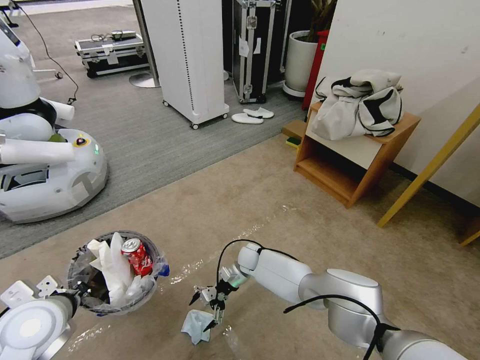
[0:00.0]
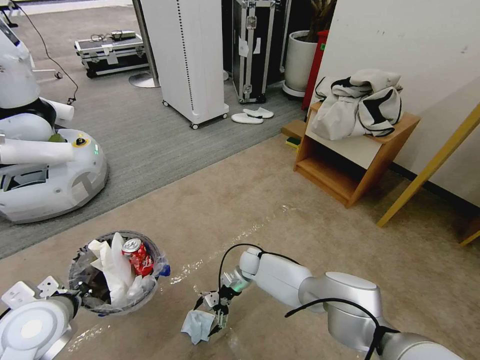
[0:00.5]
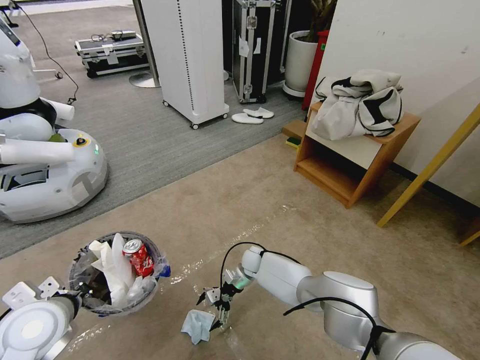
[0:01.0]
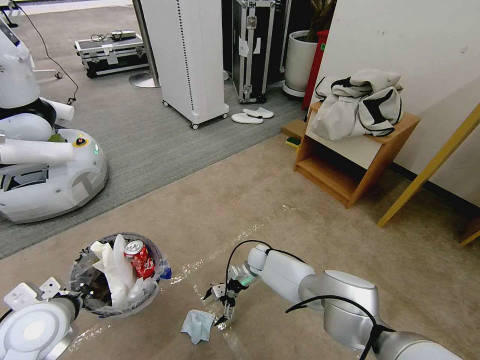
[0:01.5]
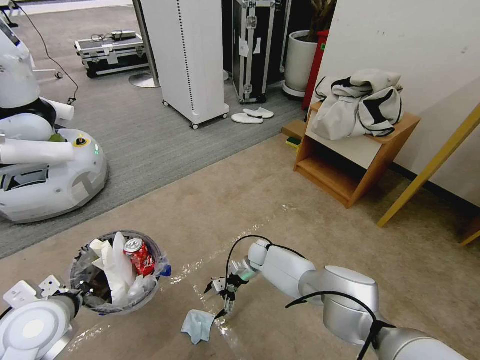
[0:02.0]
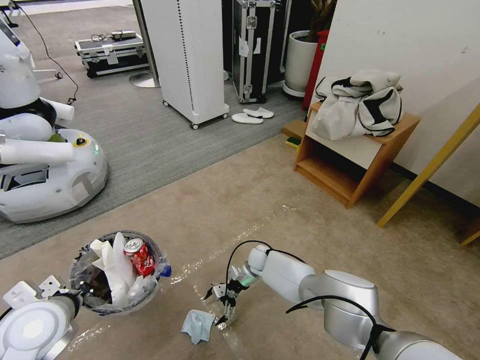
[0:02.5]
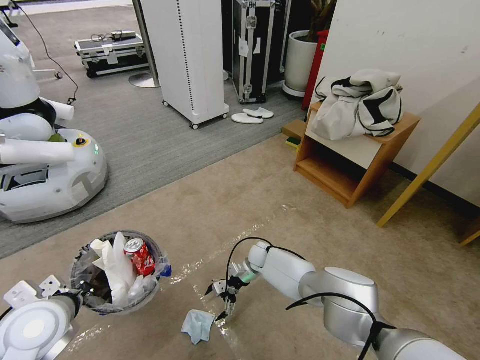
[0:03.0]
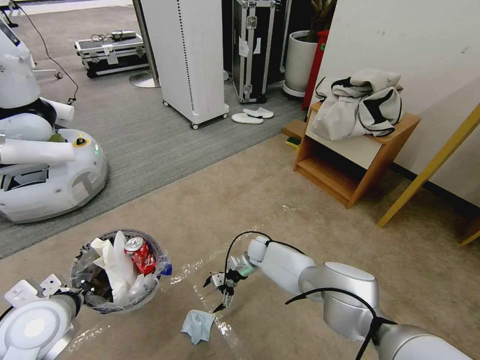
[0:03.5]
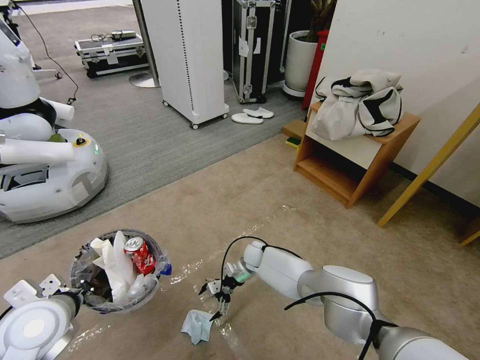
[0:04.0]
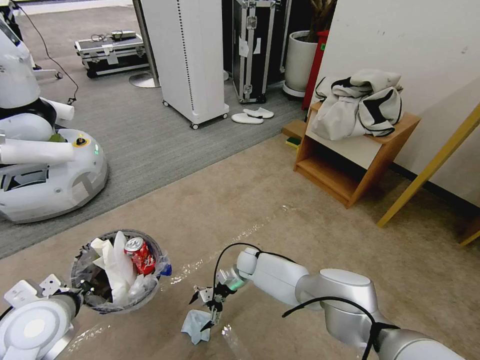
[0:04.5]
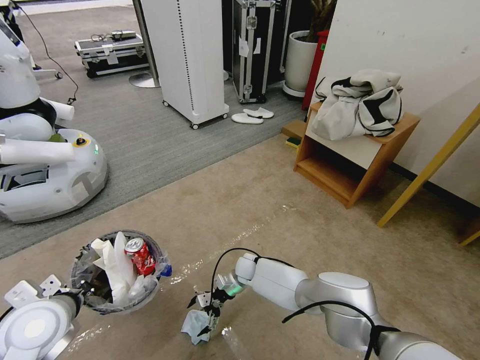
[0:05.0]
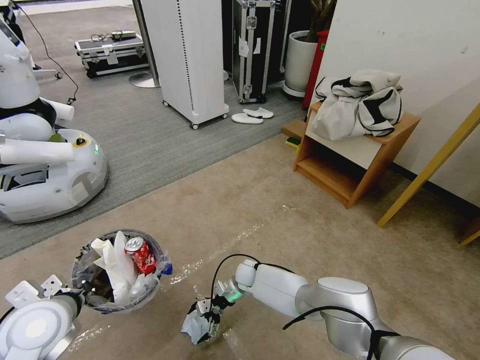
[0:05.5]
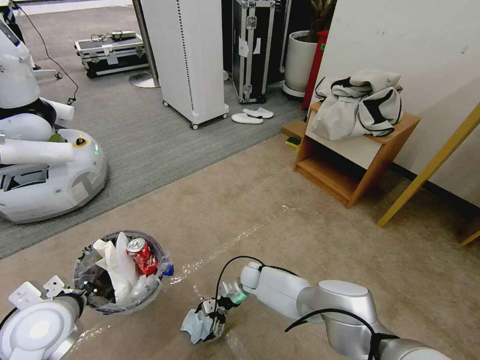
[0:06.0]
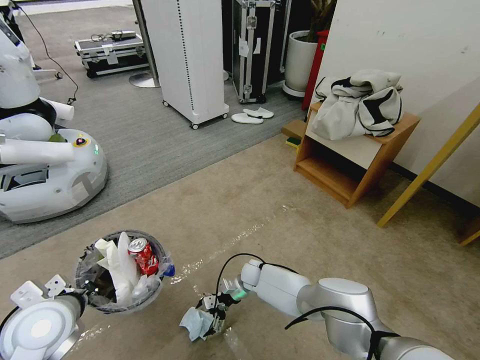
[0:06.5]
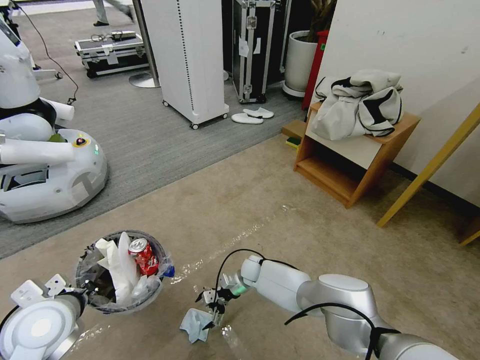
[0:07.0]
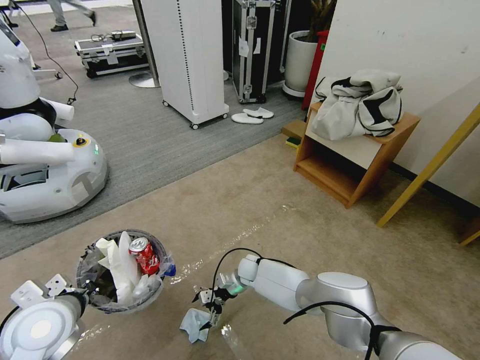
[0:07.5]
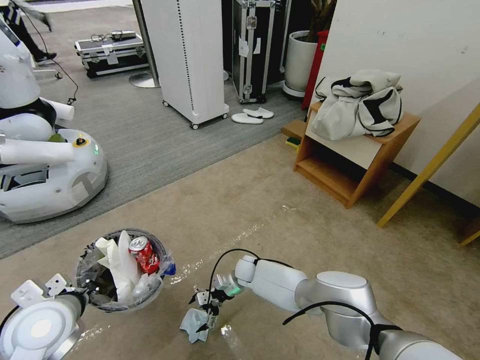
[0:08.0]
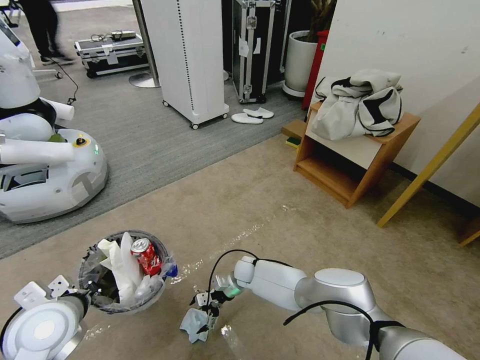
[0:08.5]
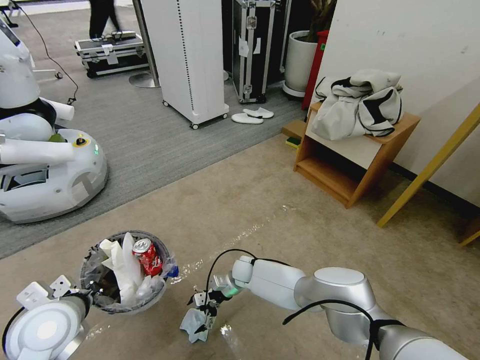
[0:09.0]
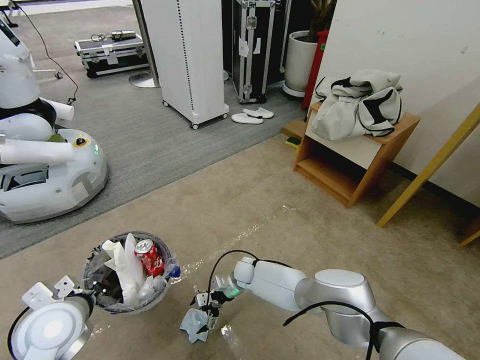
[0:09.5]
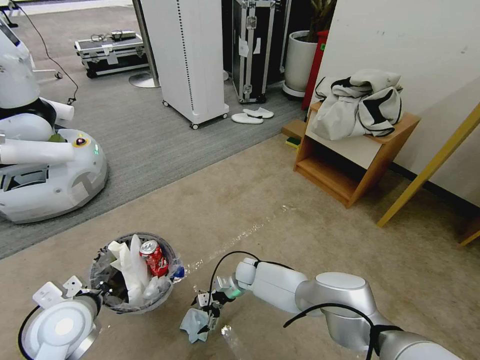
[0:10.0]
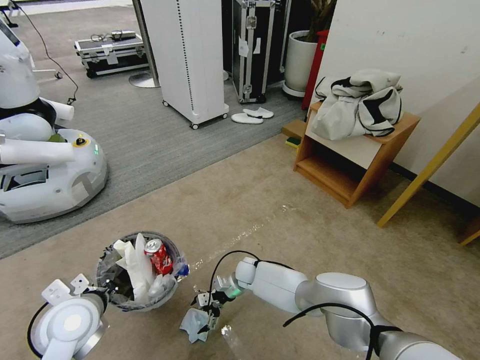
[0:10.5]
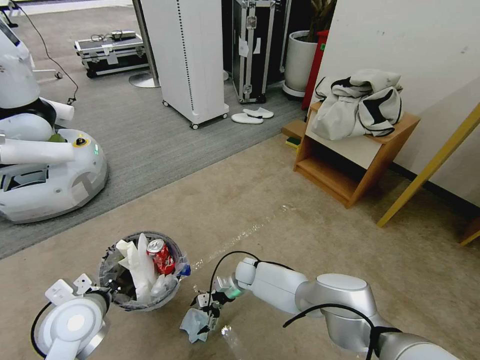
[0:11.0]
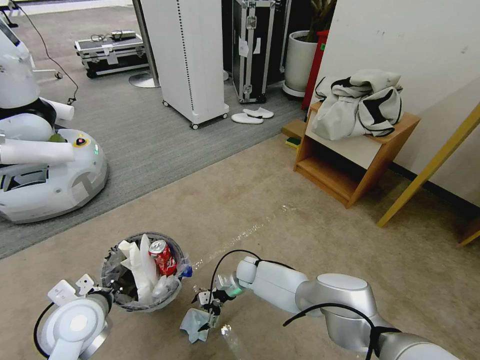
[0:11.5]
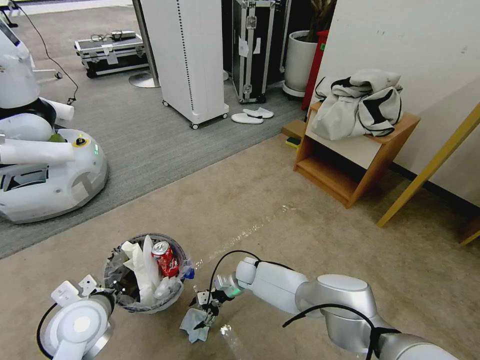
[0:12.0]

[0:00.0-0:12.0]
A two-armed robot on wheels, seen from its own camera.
Task of the whole recording: Pick up the trash bin and place the garbage on the floor into it.
0:00.0 to 0:04.0: The grippers make only small movements.
0:04.0 to 0:06.0: The right gripper is displaced backward by roughly 5 cm.
0:06.0 to 0:12.0: The grippers move only a little.

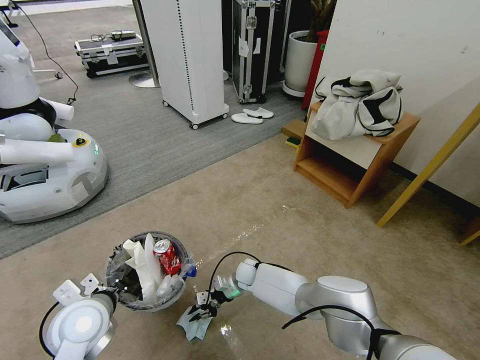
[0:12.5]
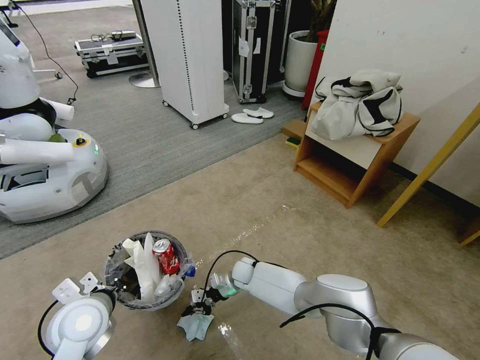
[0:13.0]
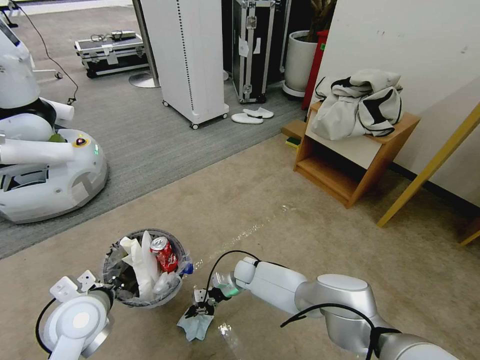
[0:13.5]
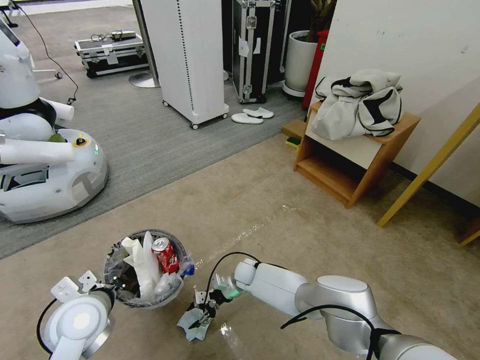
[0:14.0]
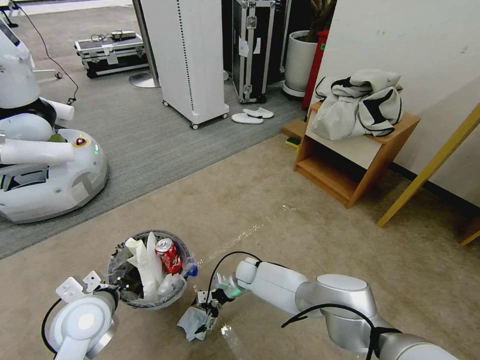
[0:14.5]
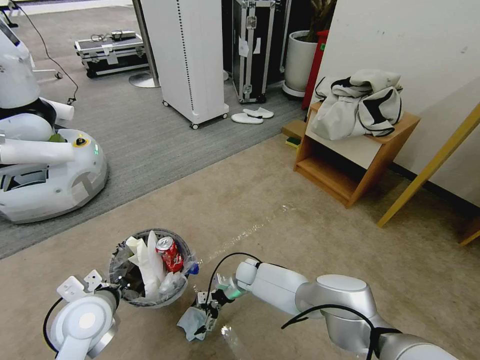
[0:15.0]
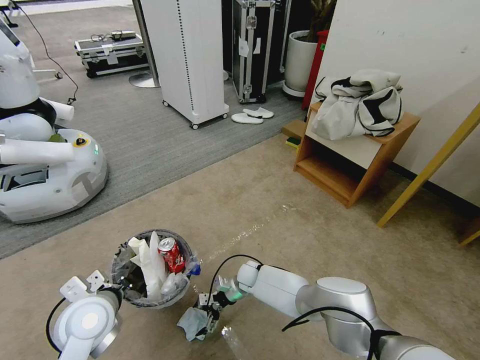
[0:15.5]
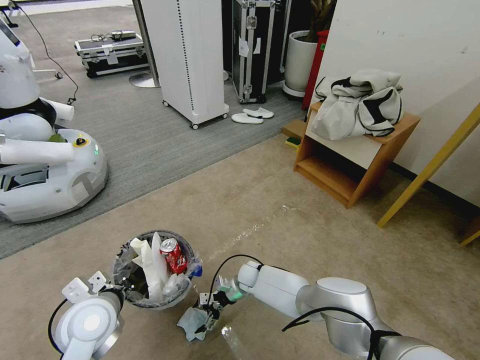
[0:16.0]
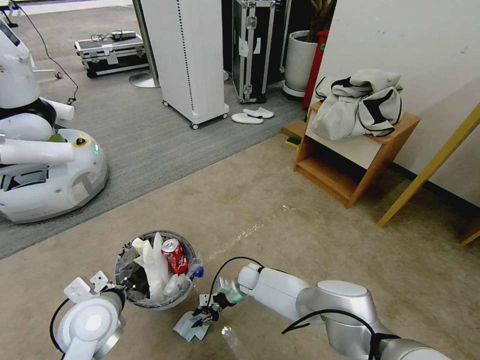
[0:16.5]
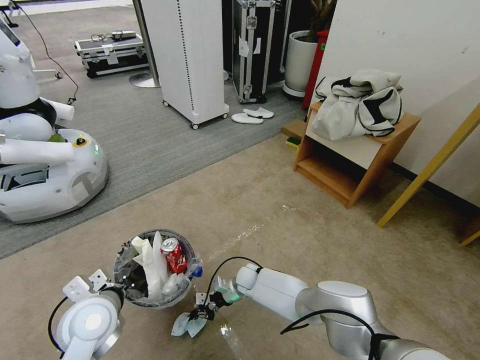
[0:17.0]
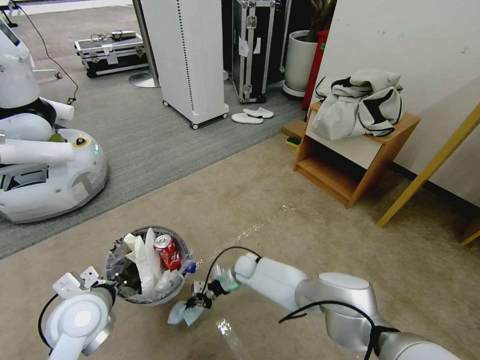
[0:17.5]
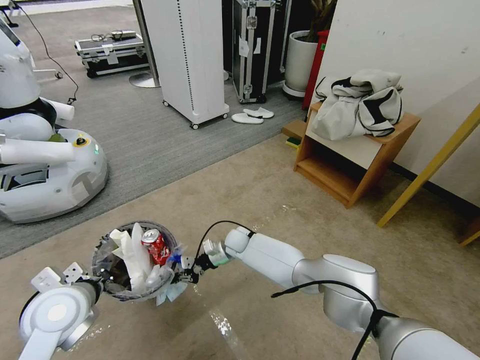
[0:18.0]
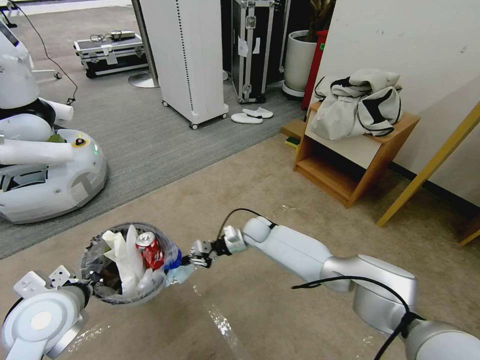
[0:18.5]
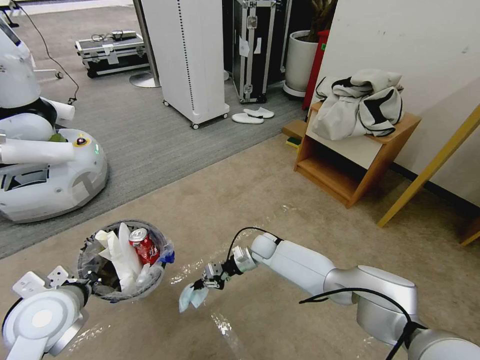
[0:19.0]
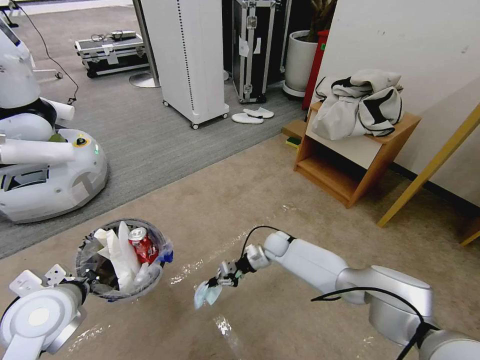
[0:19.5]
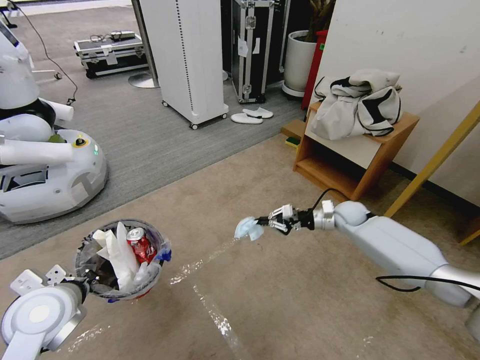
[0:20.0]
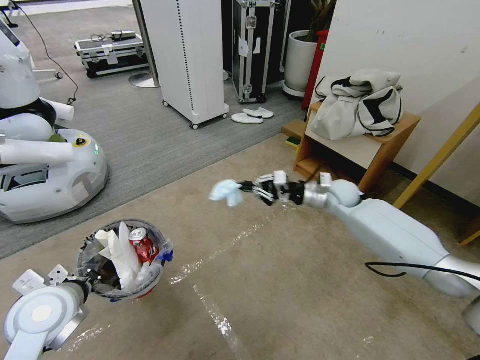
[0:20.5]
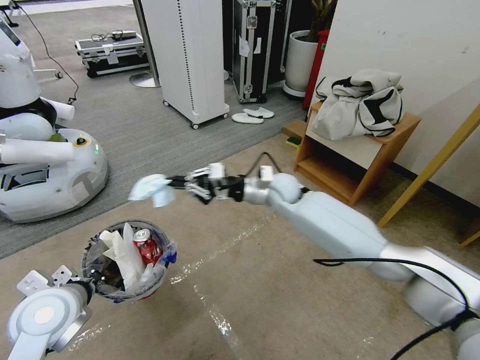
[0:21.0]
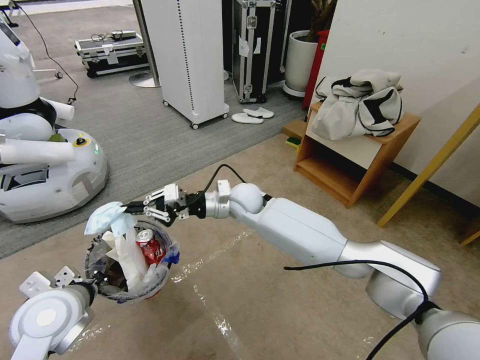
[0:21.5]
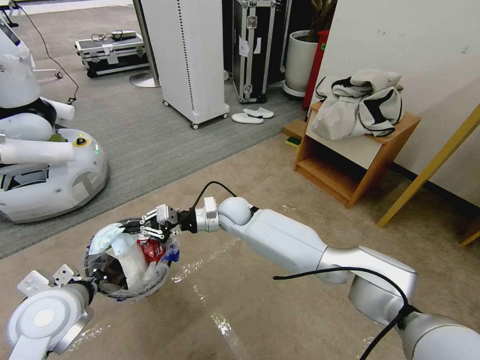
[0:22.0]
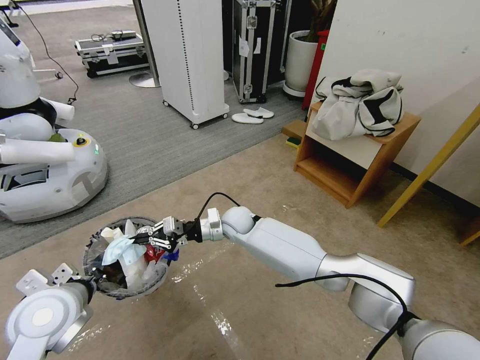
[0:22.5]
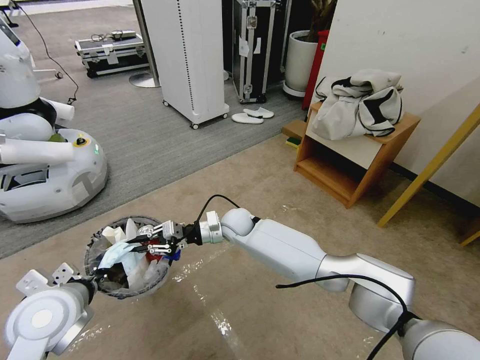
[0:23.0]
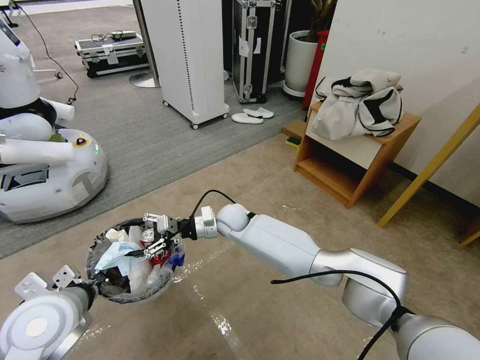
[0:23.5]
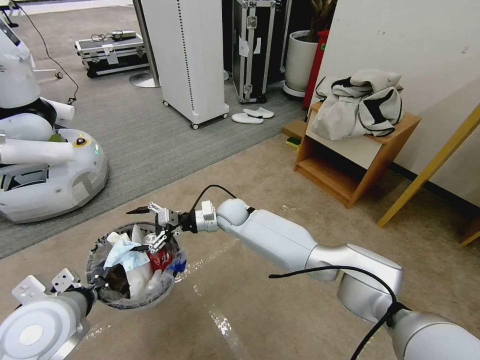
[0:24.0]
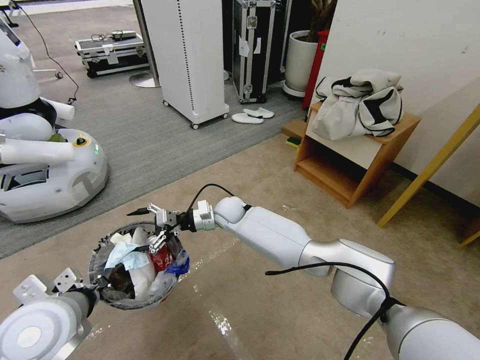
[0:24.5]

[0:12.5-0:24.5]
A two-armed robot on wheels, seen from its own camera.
Task of the whole recording: Pick up the trash bin and place the garbage on the floor into it.
0:12.5 to 0:14.5: The right gripper opens.
0:14.5 to 0:16.5: The right gripper closes.
0:16.5 to 0:18.5: The left gripper travels upward by about 5 cm. Meanwhile the right gripper shifts roughly 15 cm upward and forward.
0:18.5 to 0:20.5: The right gripper moves to the right and upward, about 30 cm.
0:20.5 to 0:22.5: The right gripper moves to the left, about 30 cm.
0:22.5 to 0:24.5: The right gripper opens up.

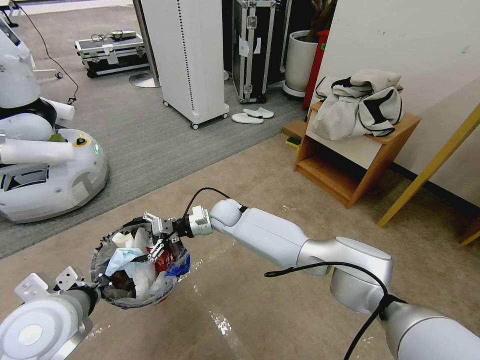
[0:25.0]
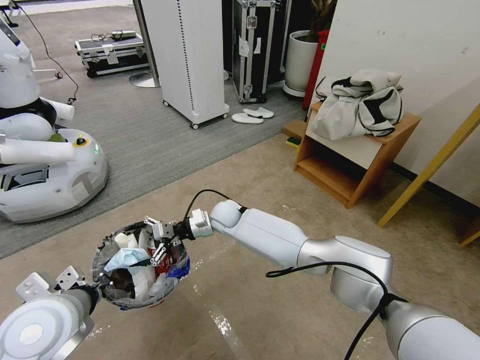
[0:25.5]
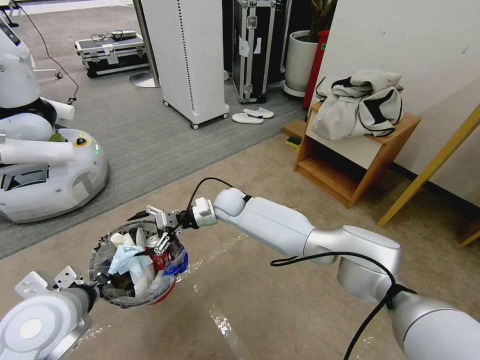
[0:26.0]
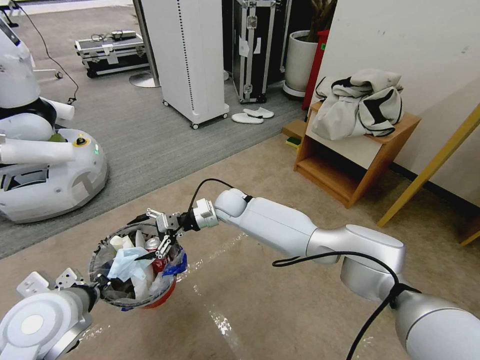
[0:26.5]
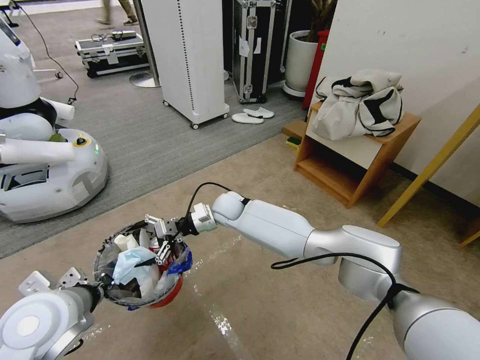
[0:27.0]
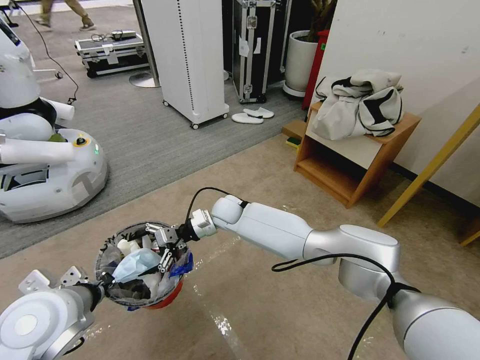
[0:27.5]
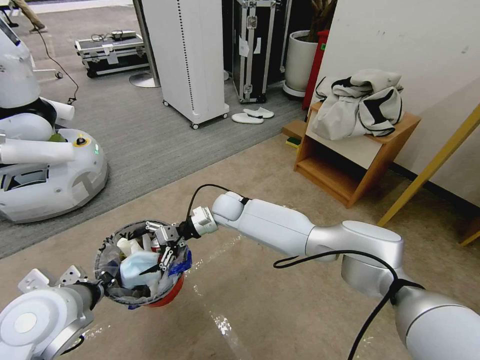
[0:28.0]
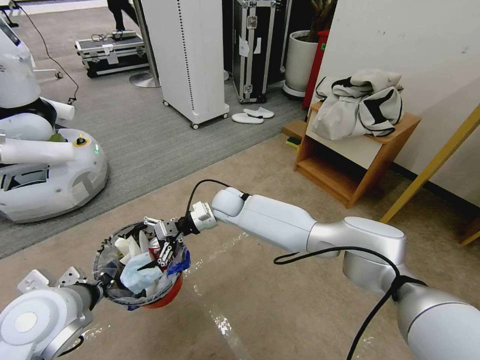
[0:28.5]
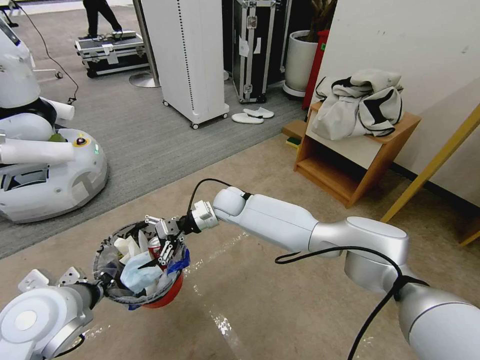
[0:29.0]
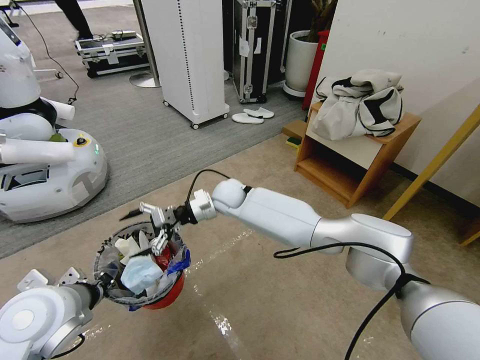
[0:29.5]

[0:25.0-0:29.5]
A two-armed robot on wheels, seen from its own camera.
Task of the whole recording: Pick up the trash bin and place the garbage on the floor into it.
0:25.0 to 0:27.0: The grippers move only a little.
0:27.0 to 0:29.5: There are only small adjustments of the grippers.
